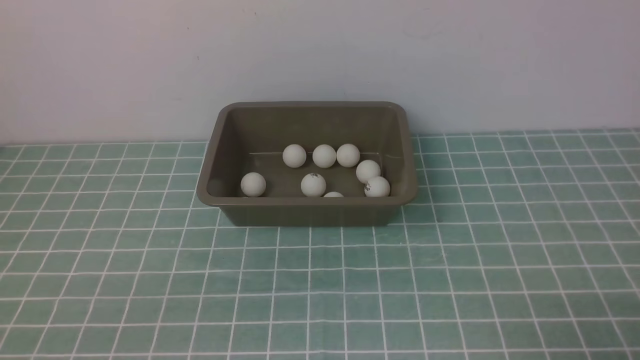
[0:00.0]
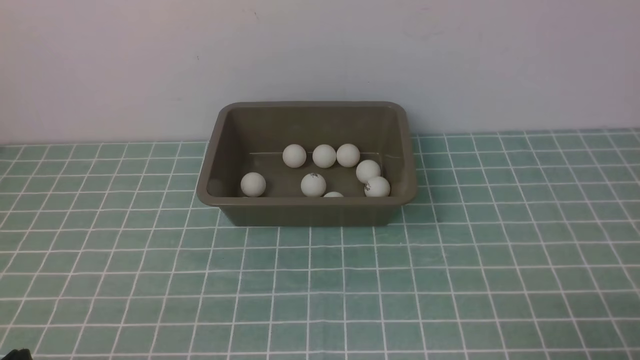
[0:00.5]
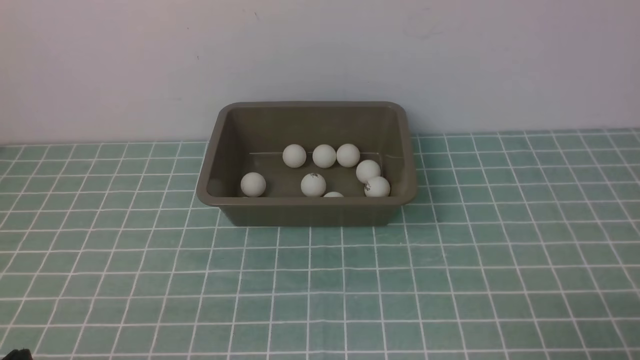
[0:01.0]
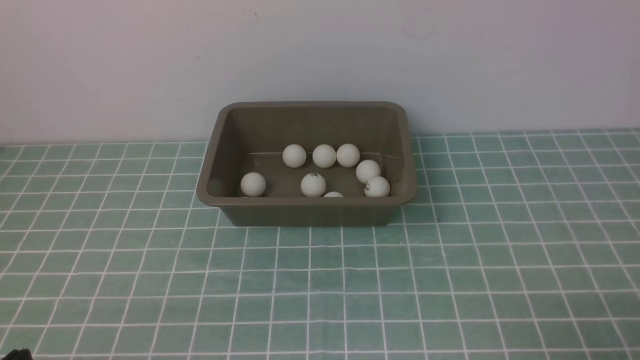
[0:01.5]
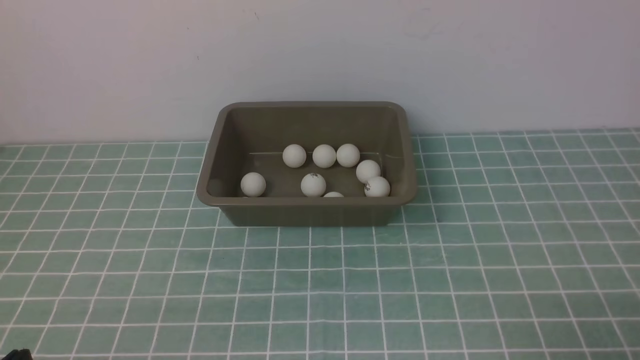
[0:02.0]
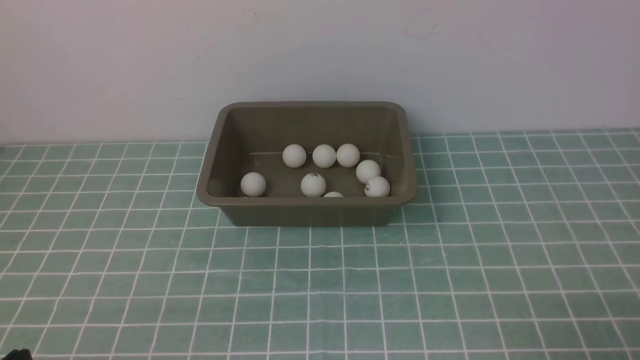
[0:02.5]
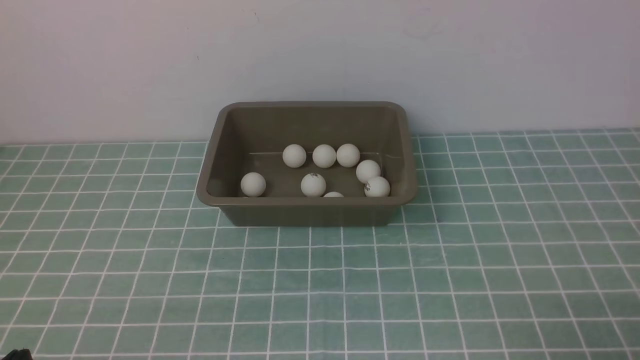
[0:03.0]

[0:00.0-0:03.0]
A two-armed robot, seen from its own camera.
0:01.5 to 0:03.0: Both grippers stay put.

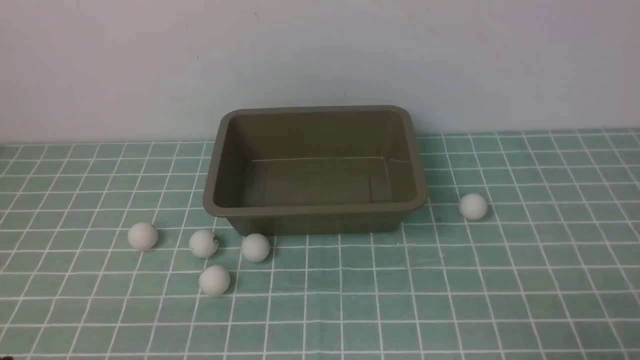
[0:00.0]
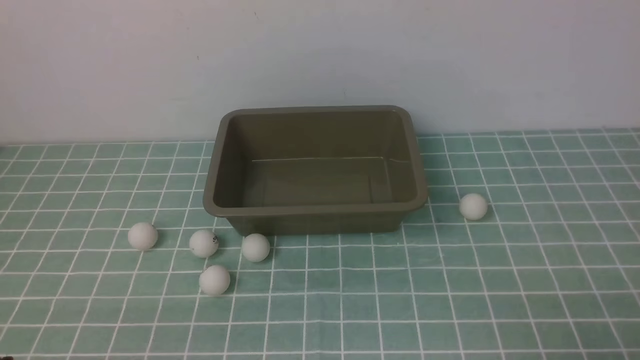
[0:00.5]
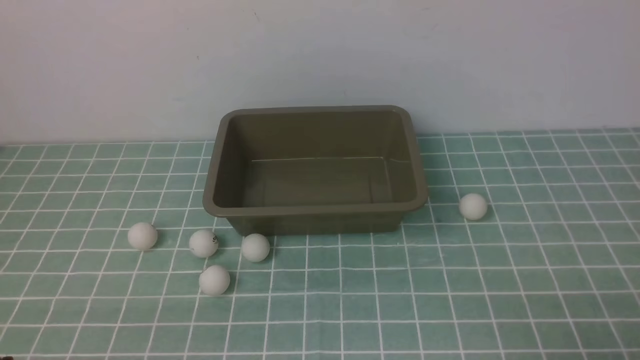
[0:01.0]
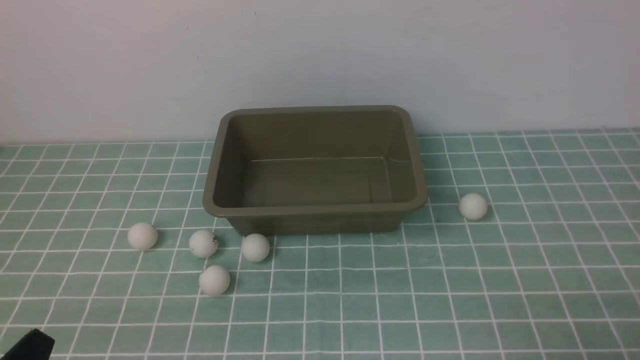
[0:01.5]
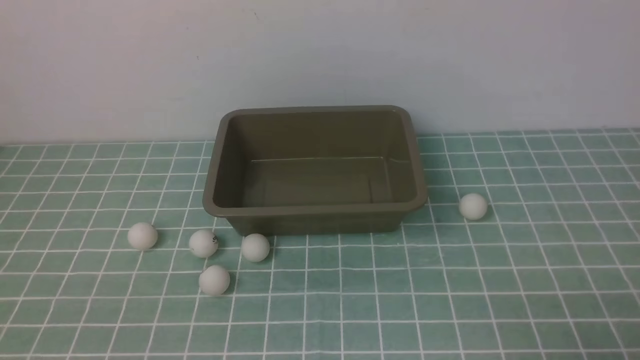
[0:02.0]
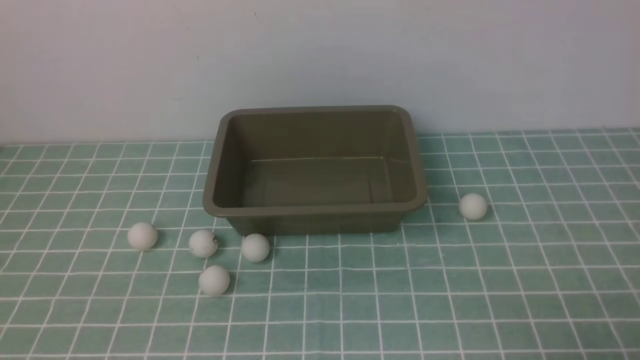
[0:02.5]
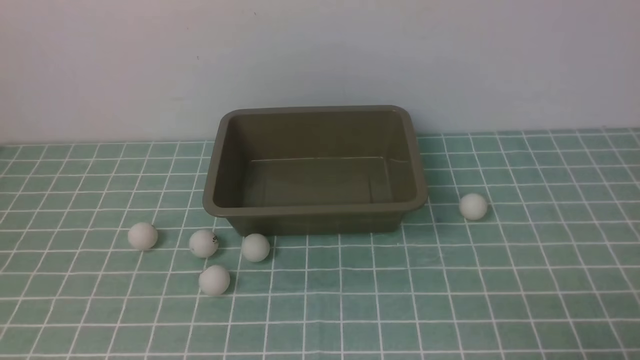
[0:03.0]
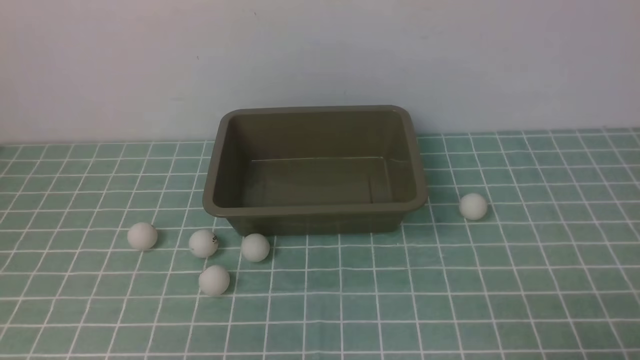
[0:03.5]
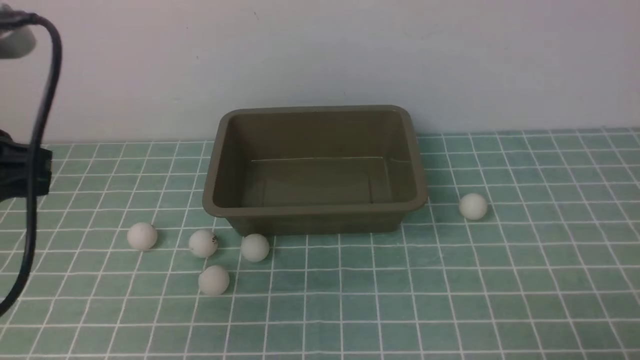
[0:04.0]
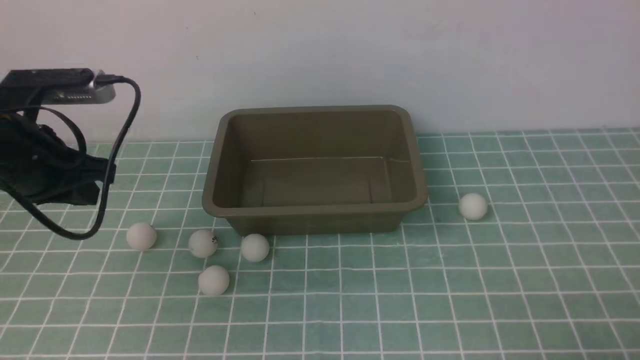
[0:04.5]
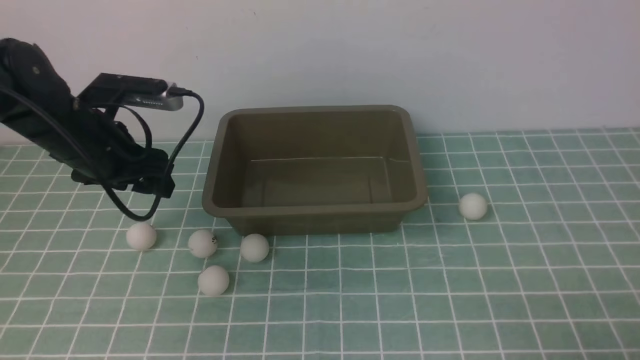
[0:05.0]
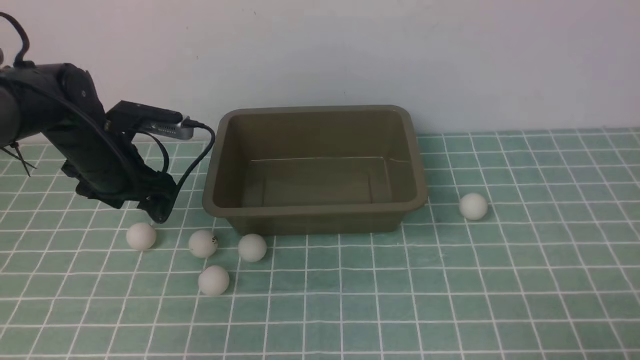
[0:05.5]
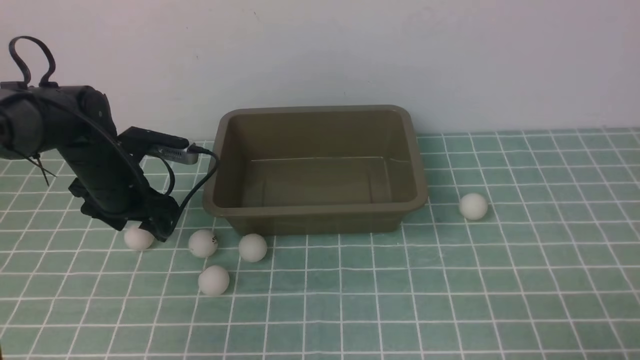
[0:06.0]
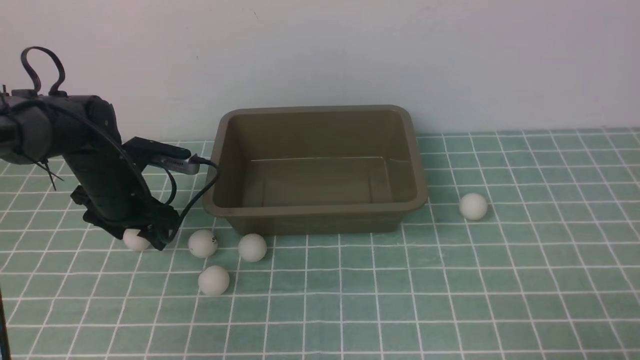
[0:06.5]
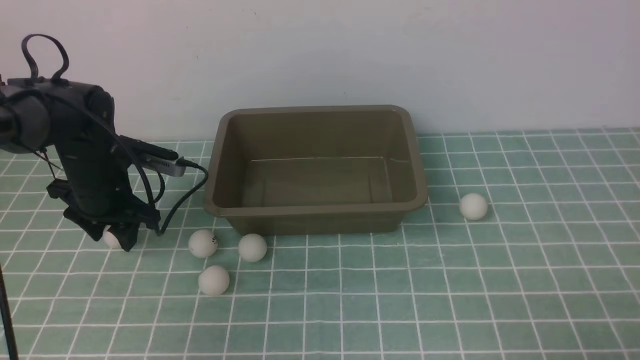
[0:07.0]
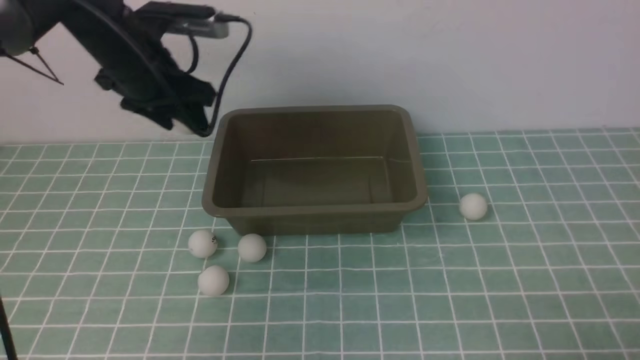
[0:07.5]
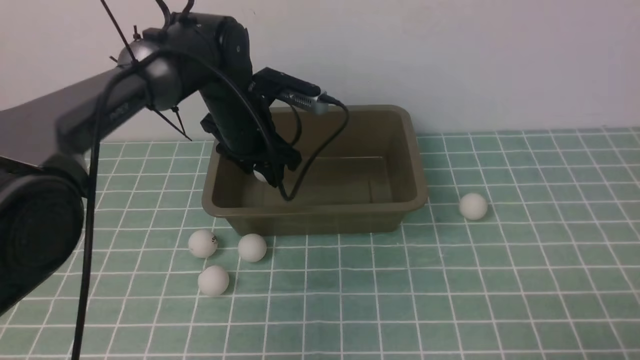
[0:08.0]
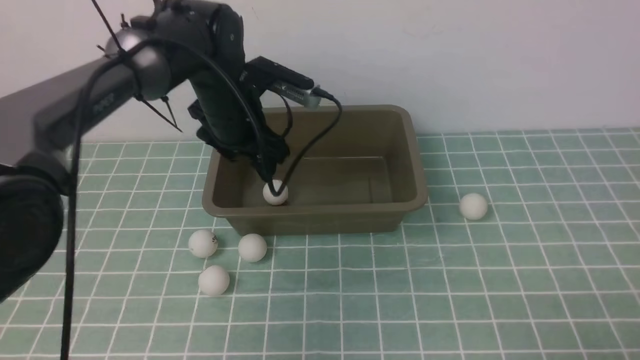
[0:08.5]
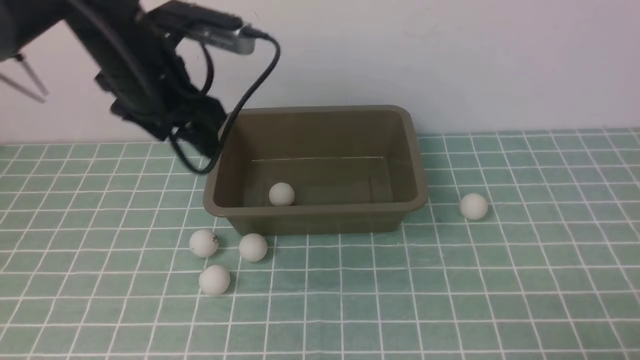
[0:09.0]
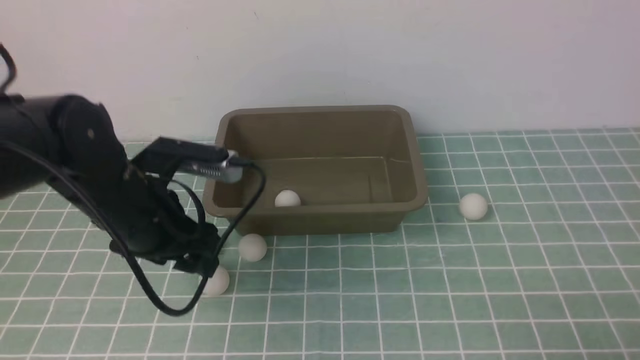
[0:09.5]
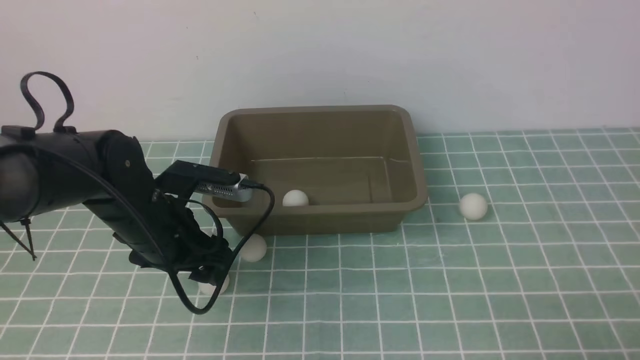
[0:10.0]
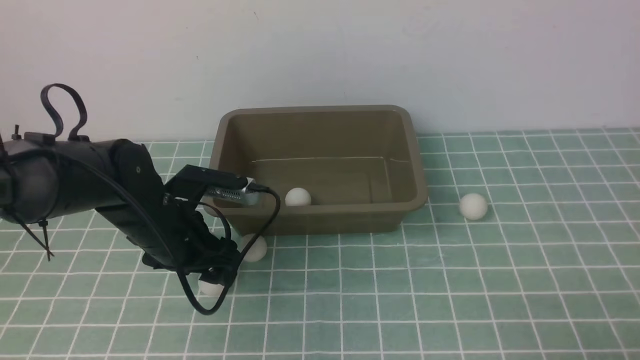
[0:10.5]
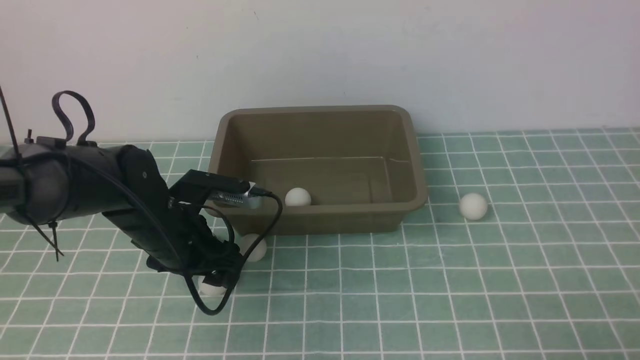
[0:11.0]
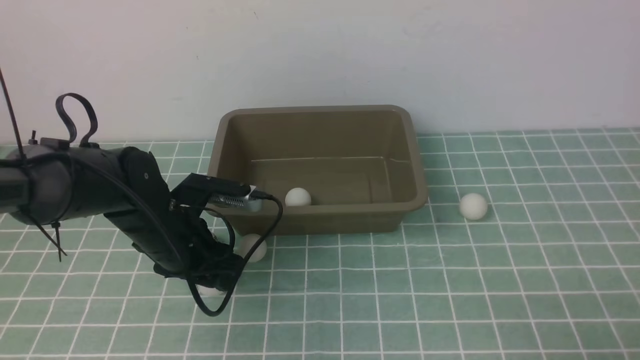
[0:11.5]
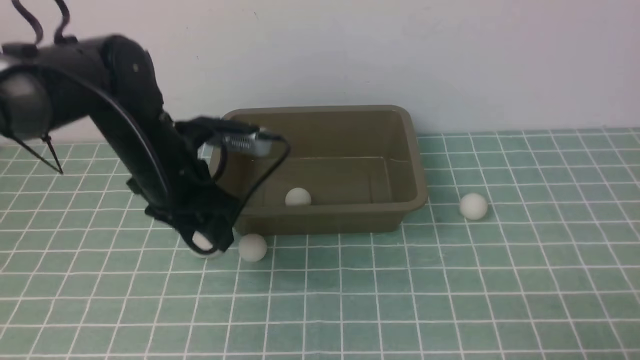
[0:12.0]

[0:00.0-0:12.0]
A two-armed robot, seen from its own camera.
Step, 0:00.0 to 0:07.0: use the left arm to clamp the table tennis ball closest to it.
Step, 0:07.5 to 0:08.0: use the left arm to put the table tennis ball into the box.
Step, 0:09.0 to 0:11.5: use the left arm to clamp the table tennis ball closest to it.
0:02.0 to 0:04.0: The left gripper moves forward and upward, approximately 25 cm.
0:04.0 to 0:06.0: The left gripper heads downward and forward, covering approximately 25 cm, and opens.
0:06.0 to 0:08.0: The left gripper shifts some 15 cm to the right and upward.
0:08.0 to 0:10.0: The left gripper moves backward and to the left, some 15 cm.
0:10.0 to 0:12.0: The left gripper heads upward, covering some 5 cm.

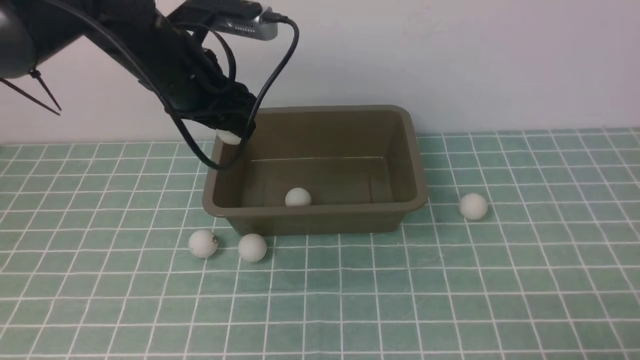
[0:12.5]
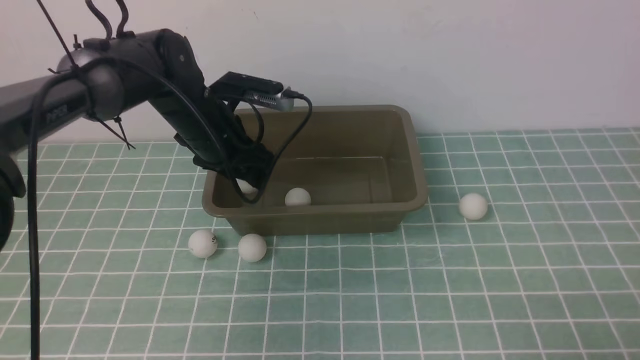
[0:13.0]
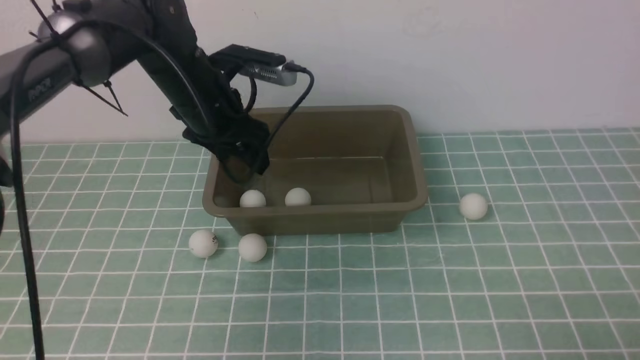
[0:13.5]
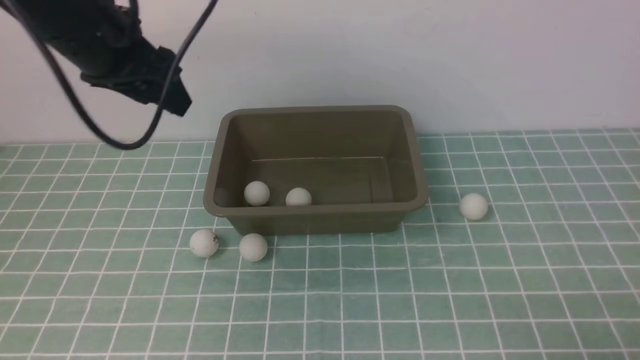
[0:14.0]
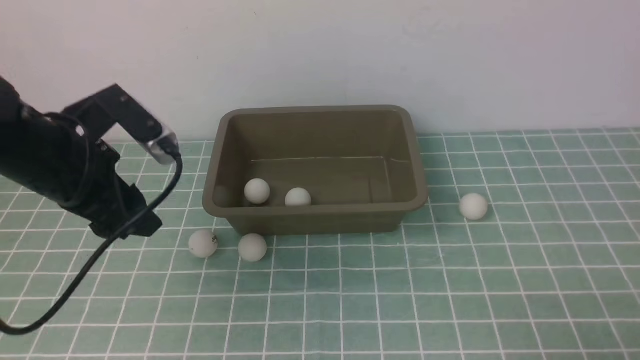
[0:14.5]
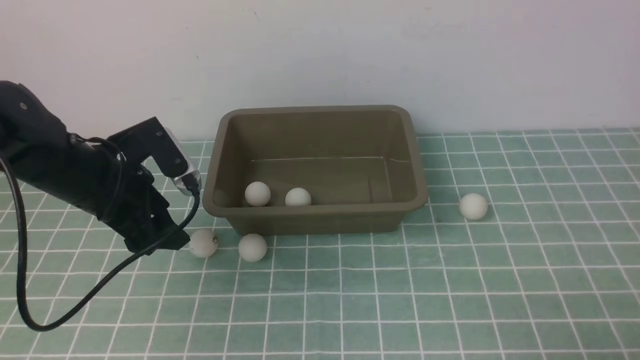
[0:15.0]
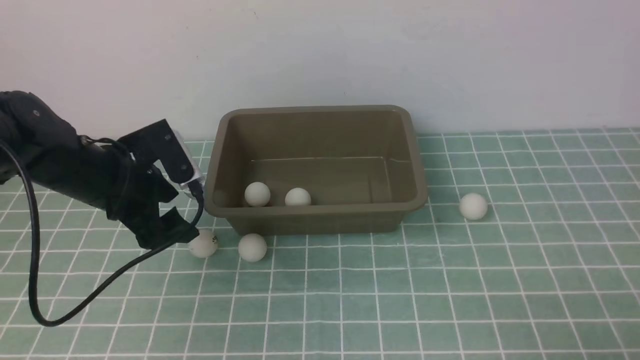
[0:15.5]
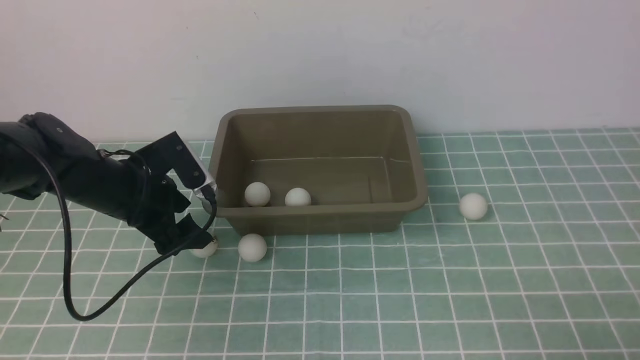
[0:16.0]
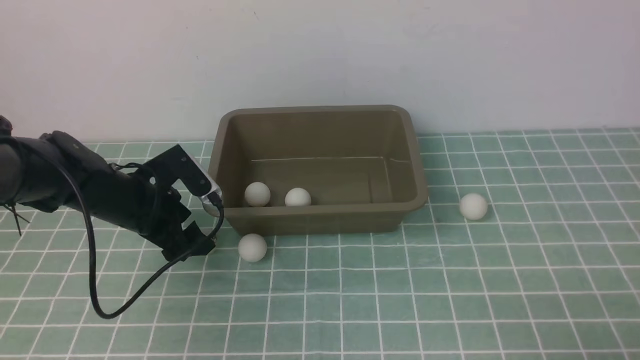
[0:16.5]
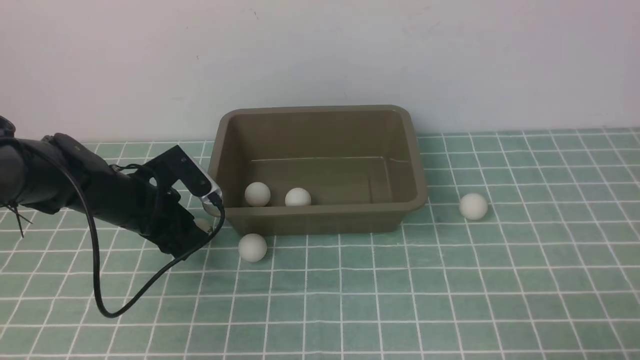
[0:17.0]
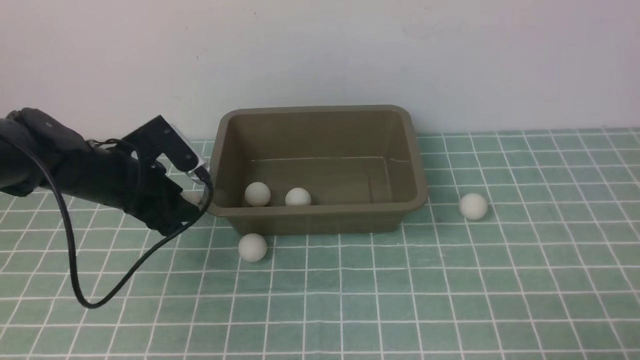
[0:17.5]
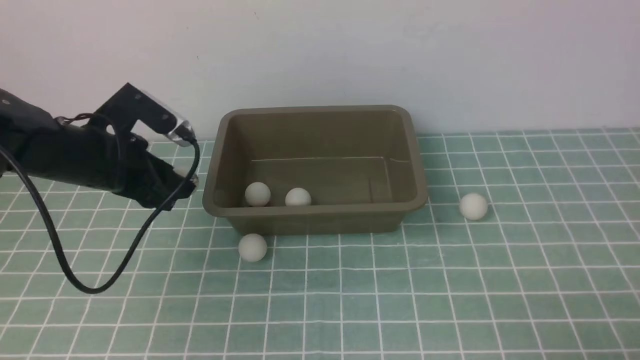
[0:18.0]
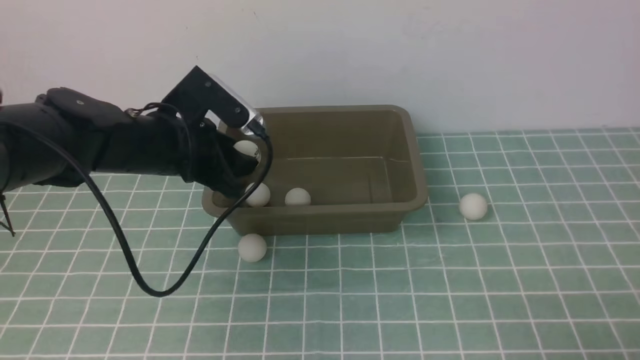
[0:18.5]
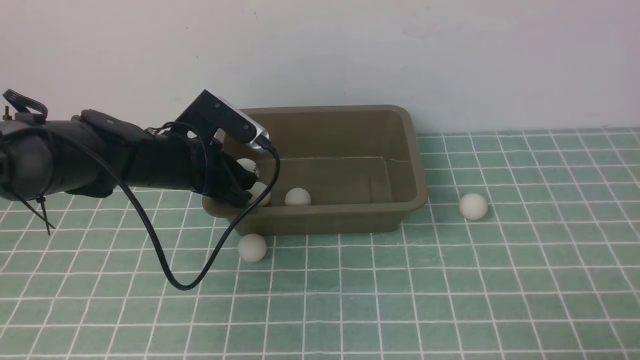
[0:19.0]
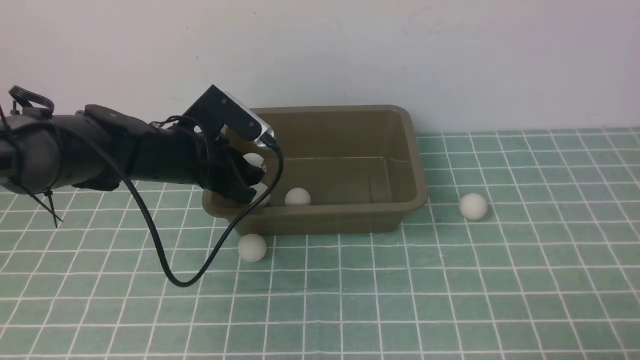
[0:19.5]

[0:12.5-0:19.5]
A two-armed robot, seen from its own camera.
Step, 0:13.5 to 0:17.5: use the left arm to clamp the table tennis ball closest to it.
0:12.5 to 0:14.5: The left gripper swings up and down, approximately 15 cm each way, with 2 reversals.
0:14.5 to 0:16.0: The left gripper shifts some 15 cm downward and forward.
0:16.0 to 0:17.5: The left gripper closes.
0:17.5 to 0:19.5: The left gripper goes approximately 10 cm to the right.
